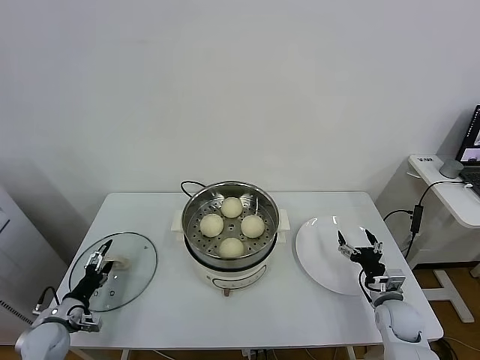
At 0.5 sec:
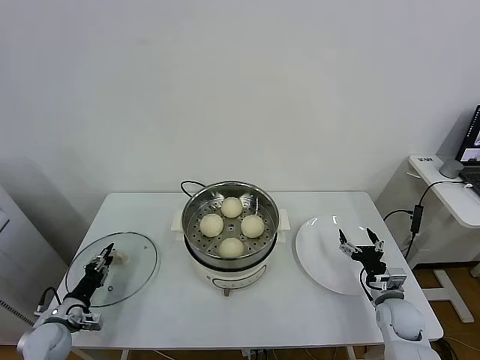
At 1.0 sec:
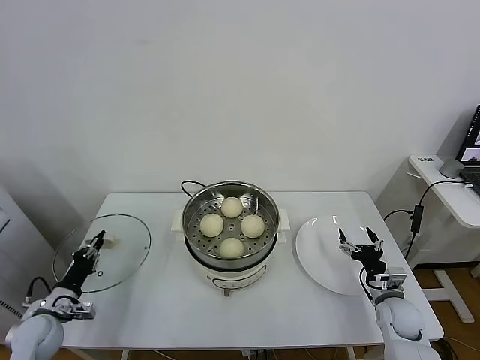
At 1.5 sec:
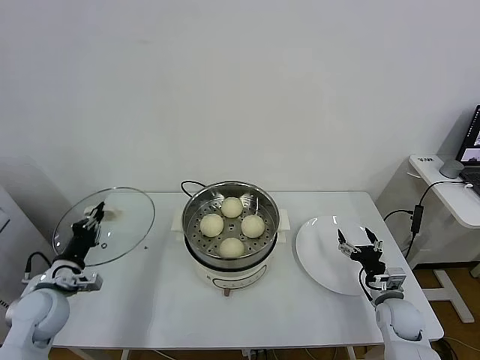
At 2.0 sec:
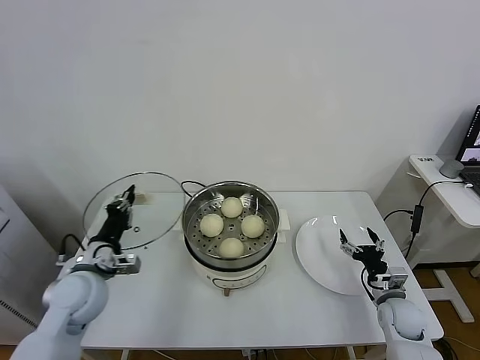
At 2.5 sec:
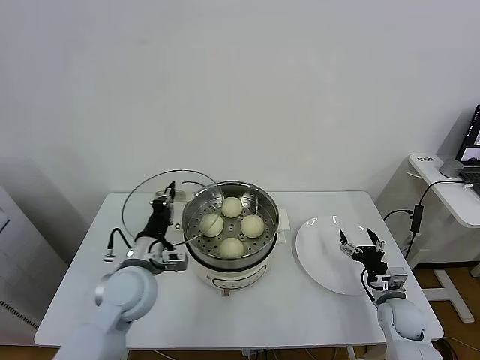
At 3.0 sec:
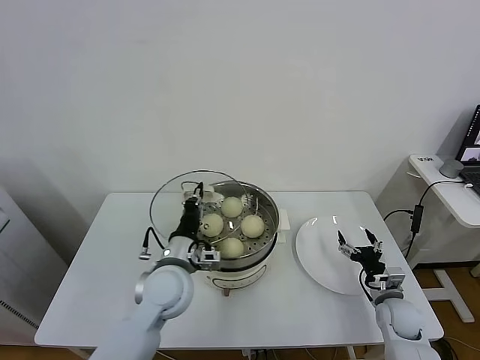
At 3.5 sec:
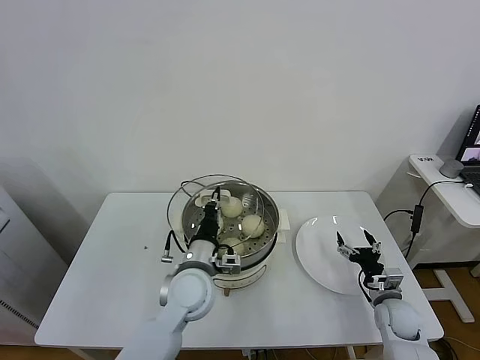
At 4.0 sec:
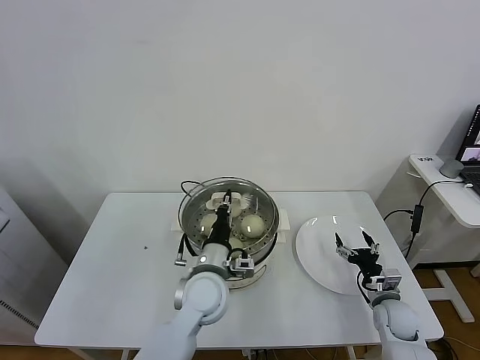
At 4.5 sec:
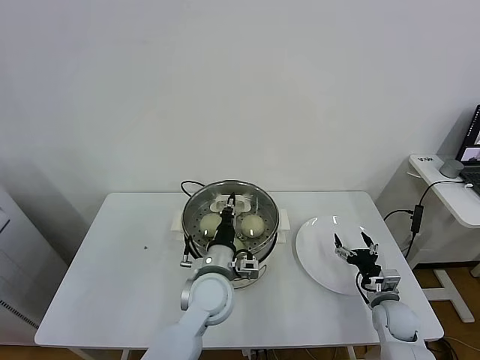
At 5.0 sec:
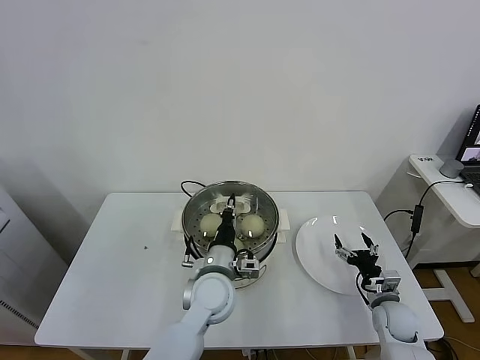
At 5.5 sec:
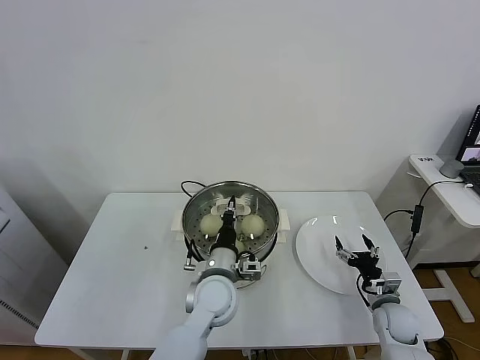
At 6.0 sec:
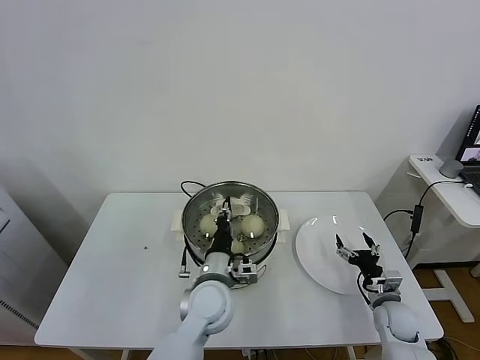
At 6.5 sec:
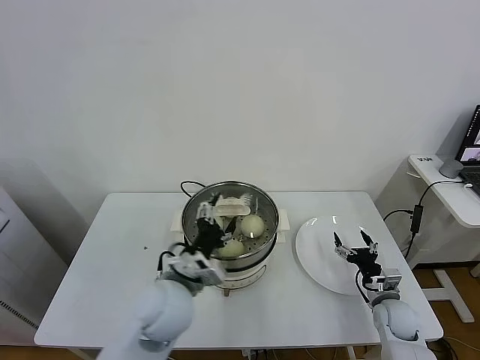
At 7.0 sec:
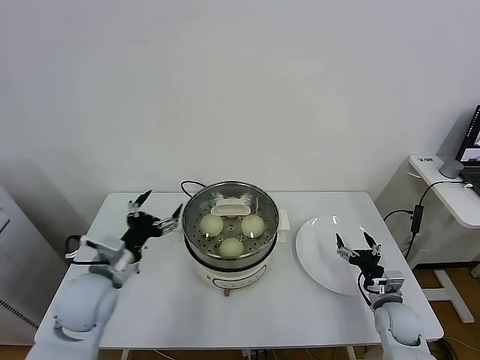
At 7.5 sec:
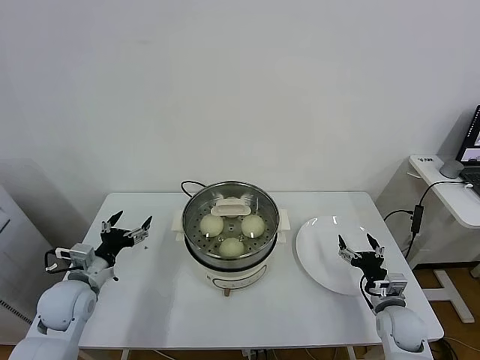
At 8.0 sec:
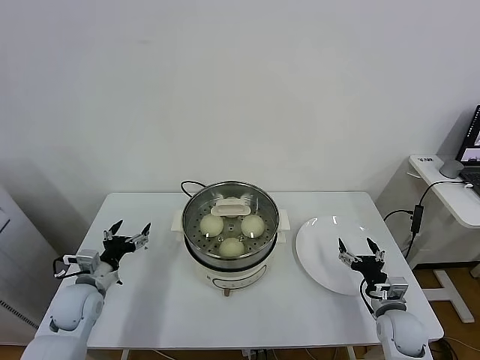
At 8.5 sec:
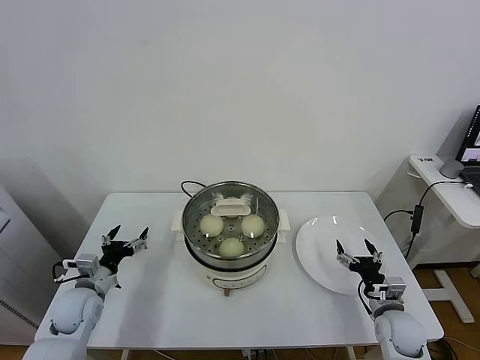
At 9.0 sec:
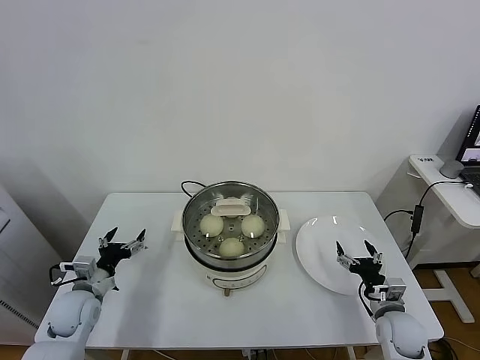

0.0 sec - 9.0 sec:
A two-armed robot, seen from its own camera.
Task of the whole recording: take steamed baozi put them in steamer.
Step, 1.0 sec - 6.5 sec: Place the pot lid on the steamer with left gripper.
0.0 sec - 2.0 sec: The left gripper shifts some 25 cm upward and to the right, and closes up.
2.0 sec - 4.5 sec: The left gripper heads to the right, covering some 25 cm.
4.5 sec - 7.0 sec: The left gripper moves to the left, about 20 cm, and opens its fingers.
7.0 sec - 9.0 sec: The left gripper moves downward and to the left, some 20 cm.
